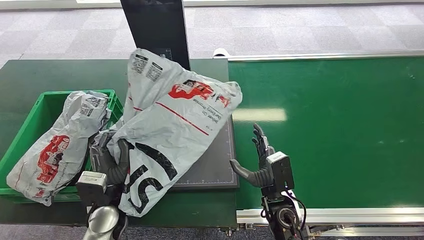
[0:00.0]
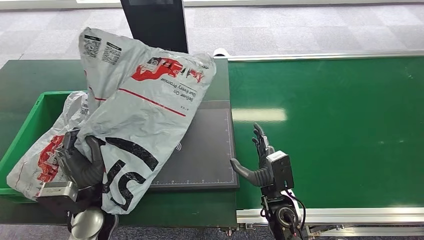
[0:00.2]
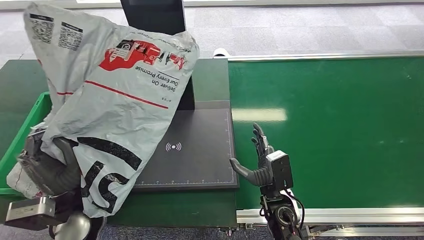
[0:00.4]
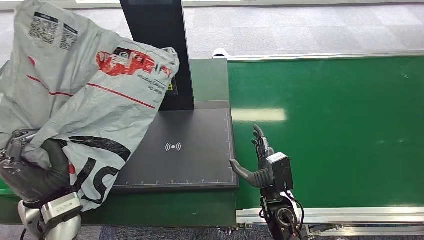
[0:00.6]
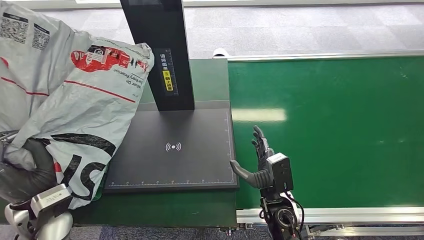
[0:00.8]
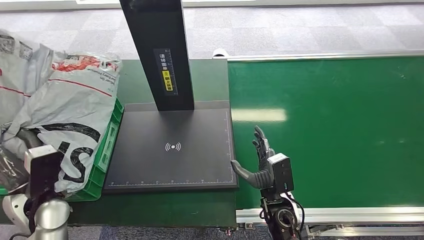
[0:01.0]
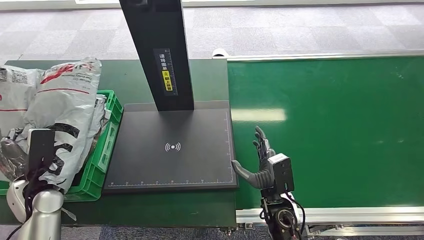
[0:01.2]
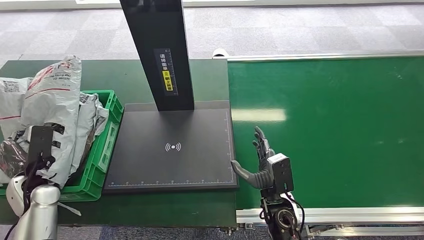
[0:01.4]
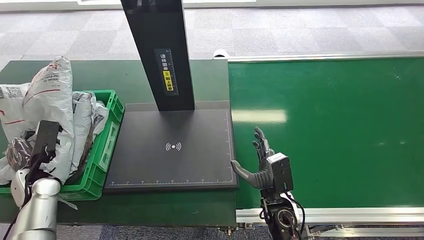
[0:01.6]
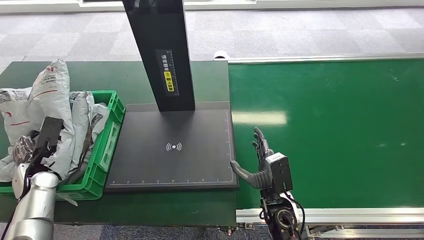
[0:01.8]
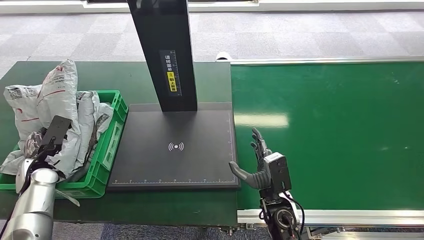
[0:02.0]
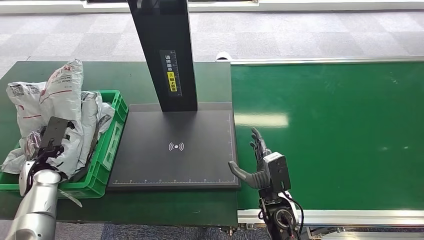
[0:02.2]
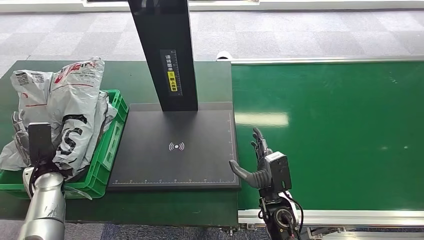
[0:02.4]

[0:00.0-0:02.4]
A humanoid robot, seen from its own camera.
Step, 0:00.4 to 0:02.4: Place the package into the parcel locker.
